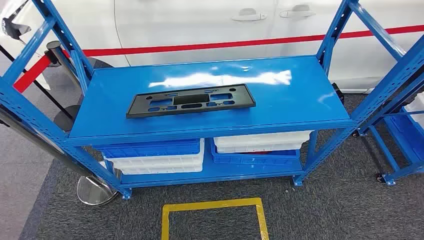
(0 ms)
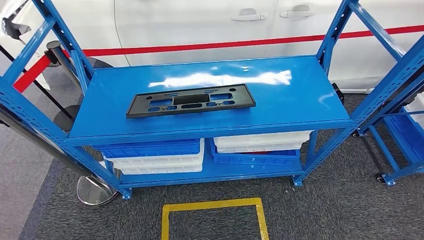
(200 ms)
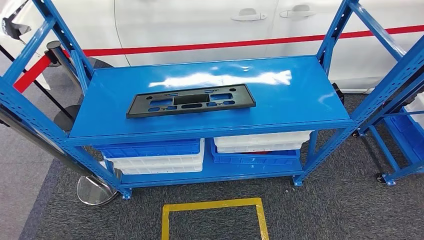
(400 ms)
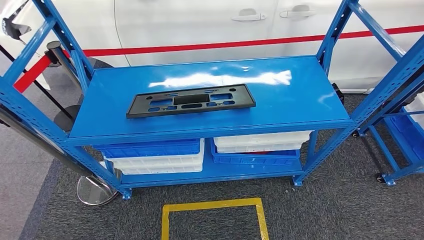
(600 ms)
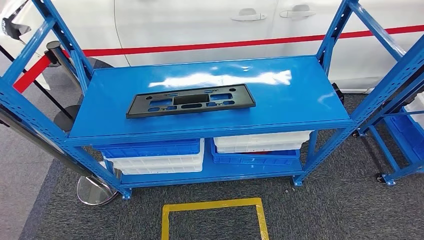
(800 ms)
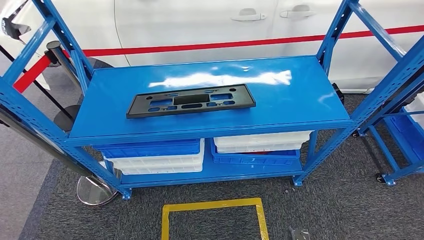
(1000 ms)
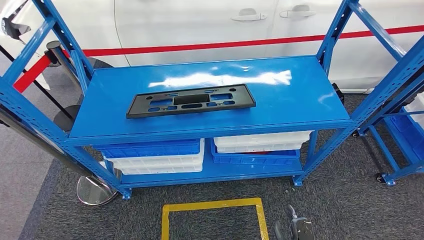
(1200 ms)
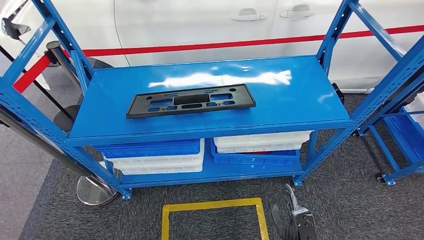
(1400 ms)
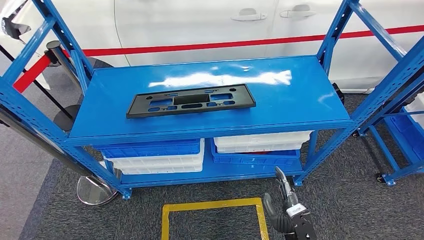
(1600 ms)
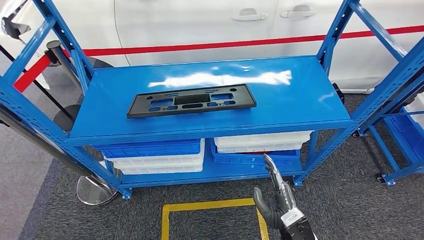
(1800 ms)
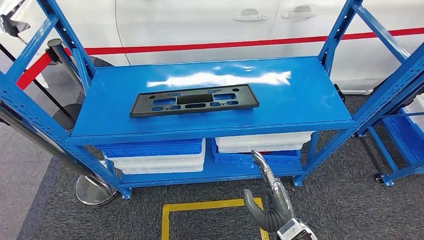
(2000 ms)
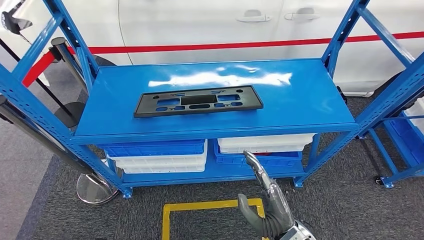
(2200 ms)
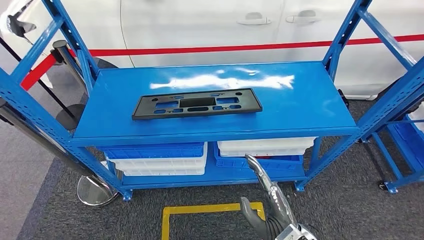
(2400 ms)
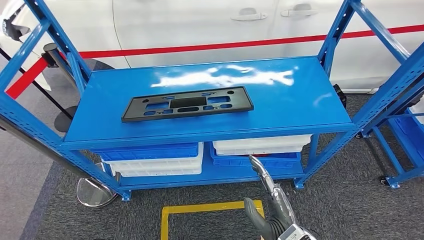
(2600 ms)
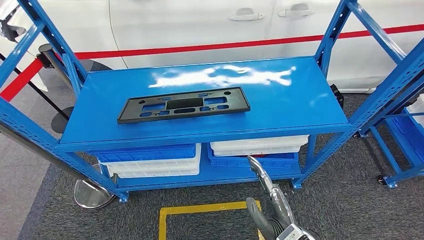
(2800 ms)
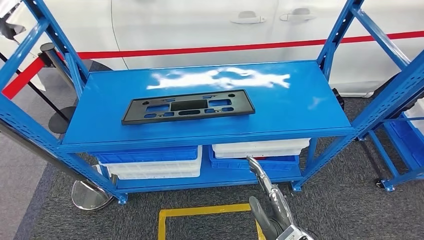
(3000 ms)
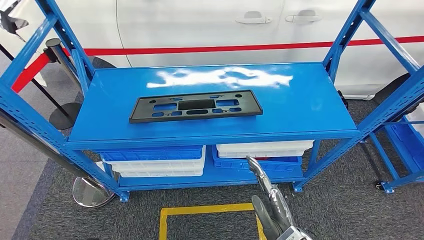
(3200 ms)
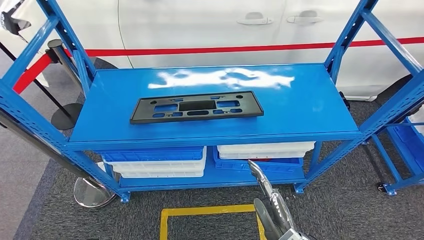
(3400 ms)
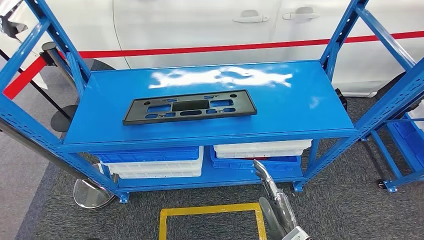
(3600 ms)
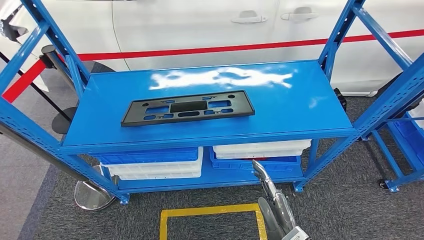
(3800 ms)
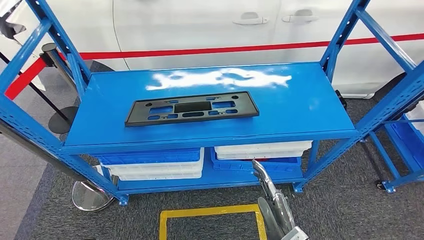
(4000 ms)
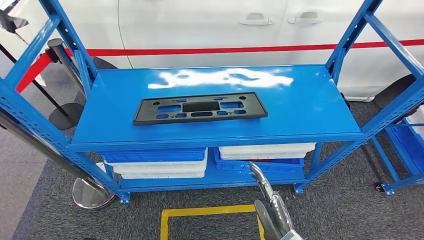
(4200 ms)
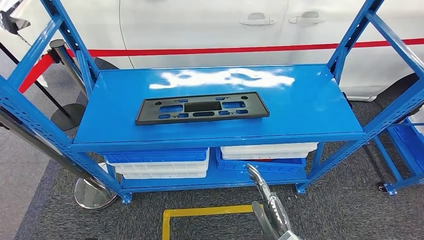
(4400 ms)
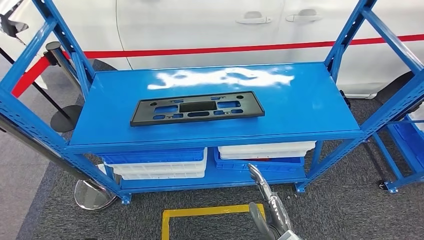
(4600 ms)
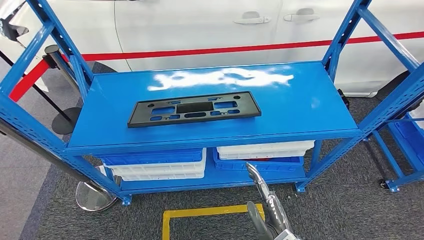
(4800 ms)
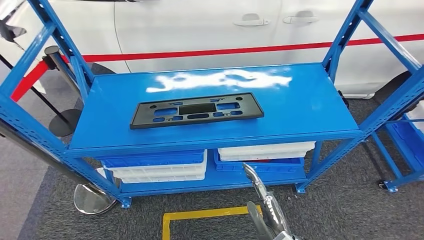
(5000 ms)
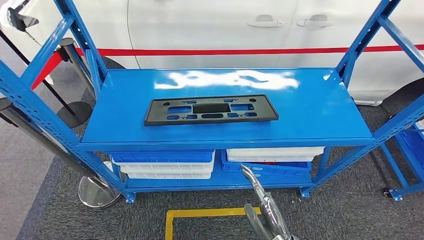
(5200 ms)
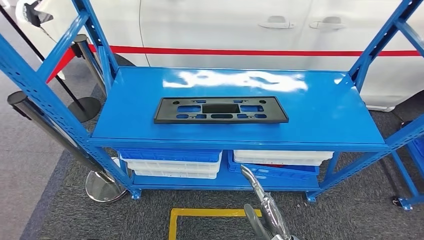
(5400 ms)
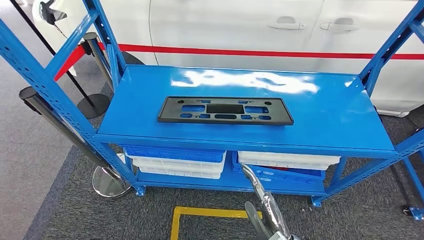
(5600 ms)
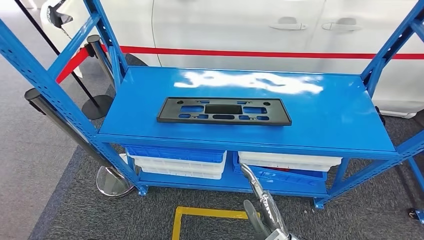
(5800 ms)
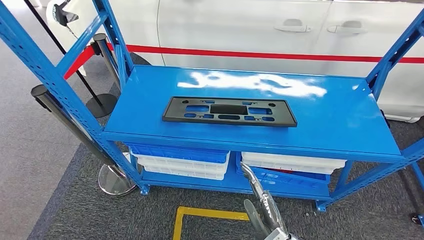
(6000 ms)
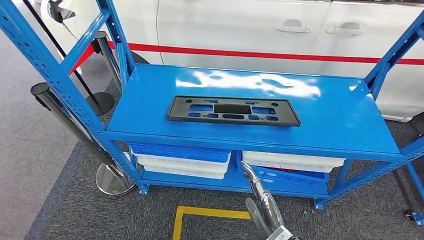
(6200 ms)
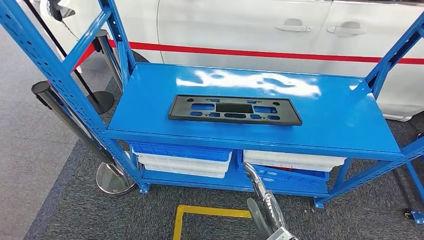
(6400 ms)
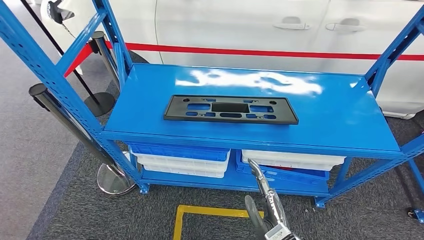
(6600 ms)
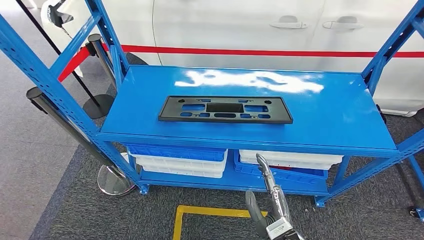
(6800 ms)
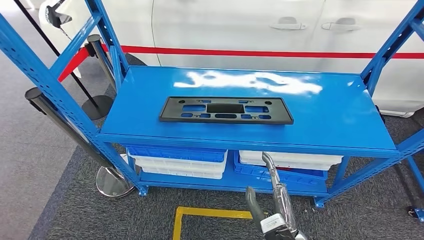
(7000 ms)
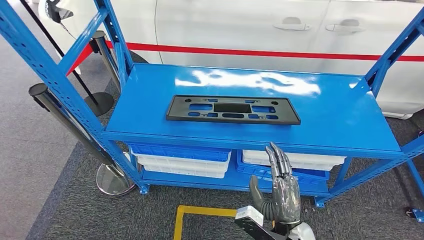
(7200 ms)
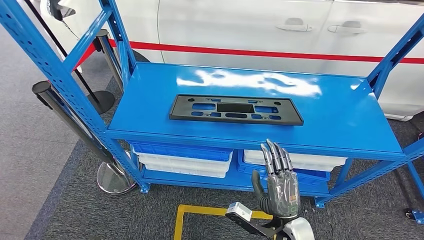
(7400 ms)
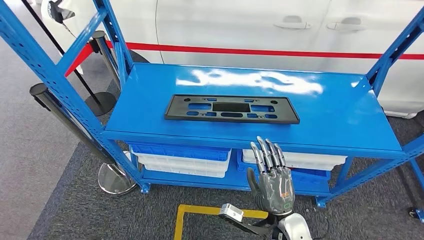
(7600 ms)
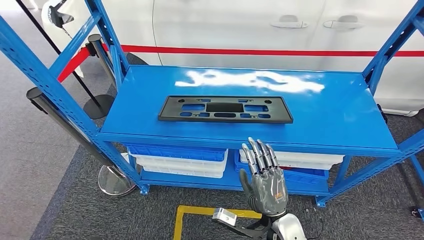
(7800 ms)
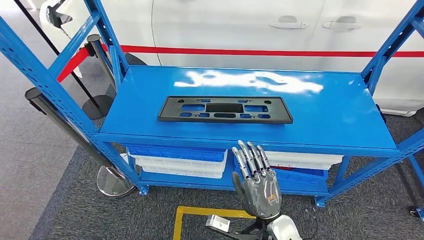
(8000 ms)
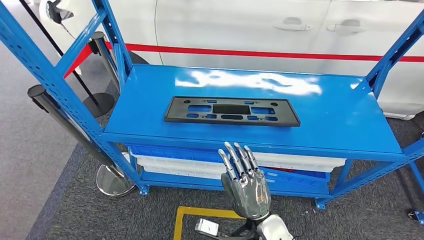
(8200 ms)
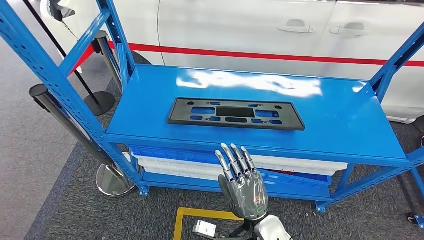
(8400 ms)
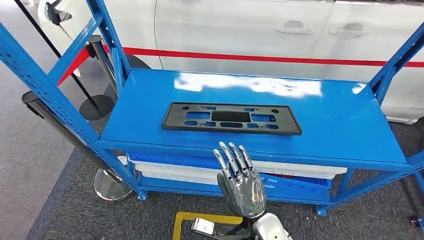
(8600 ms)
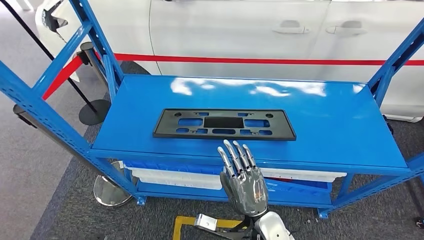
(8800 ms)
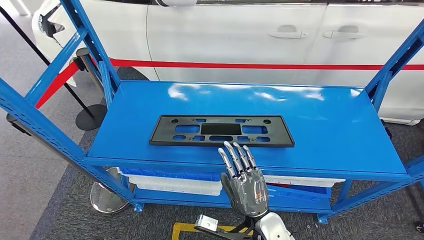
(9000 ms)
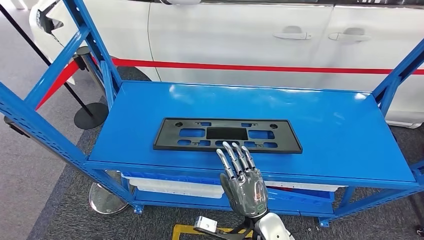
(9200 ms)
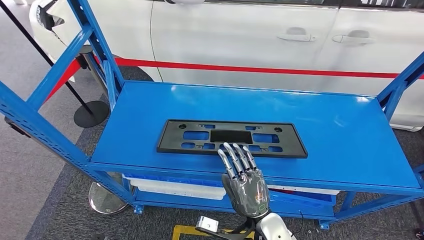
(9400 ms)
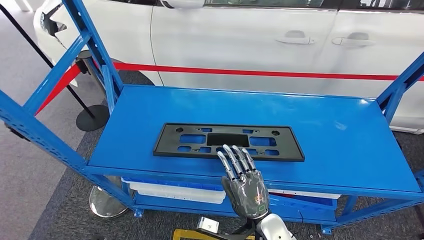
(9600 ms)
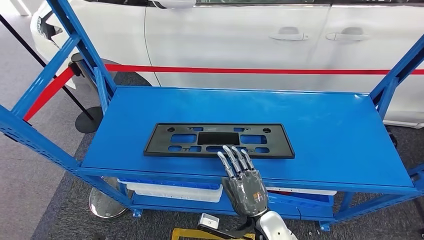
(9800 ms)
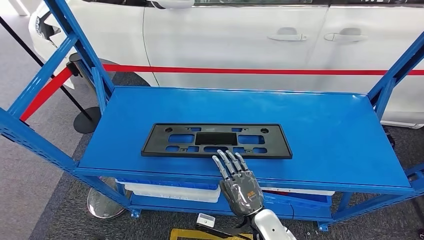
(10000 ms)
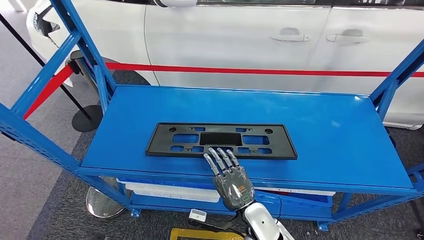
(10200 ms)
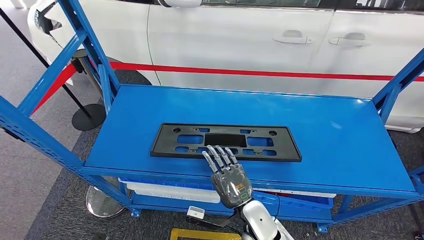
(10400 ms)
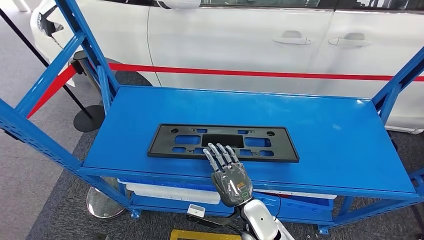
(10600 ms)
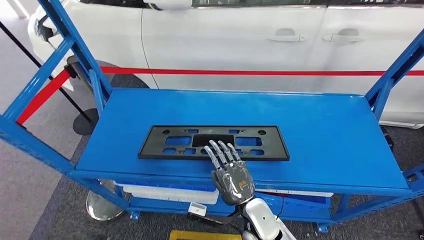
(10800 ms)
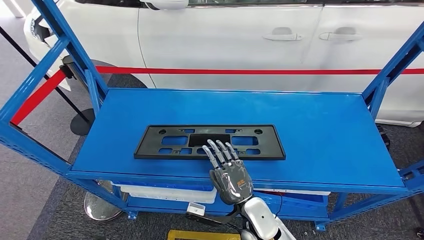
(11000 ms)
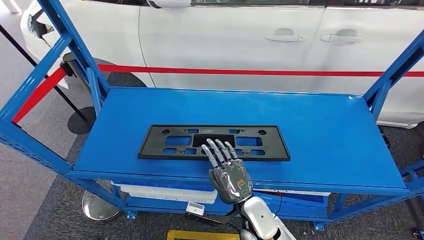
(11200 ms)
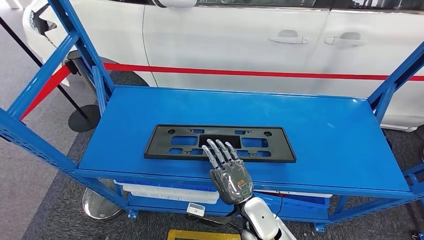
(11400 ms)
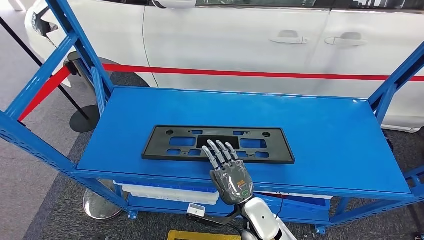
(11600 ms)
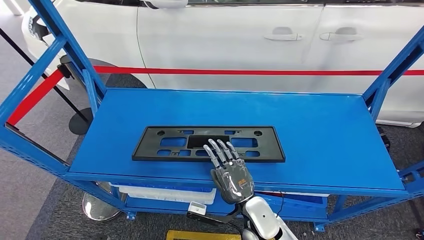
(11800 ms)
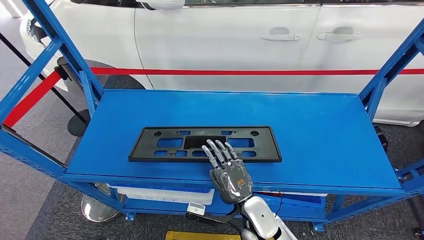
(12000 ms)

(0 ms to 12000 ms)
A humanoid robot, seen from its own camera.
6000 ms - 7600 ms: The right hand heads forward, covering approximately 5 cm.

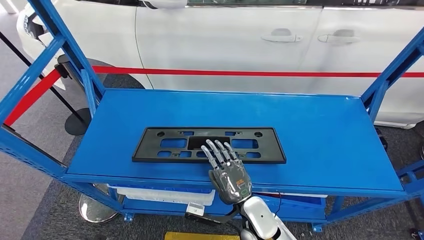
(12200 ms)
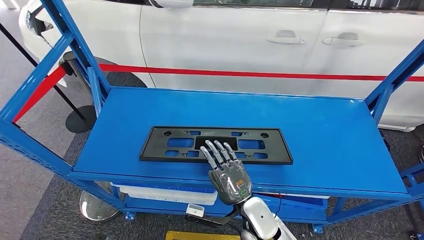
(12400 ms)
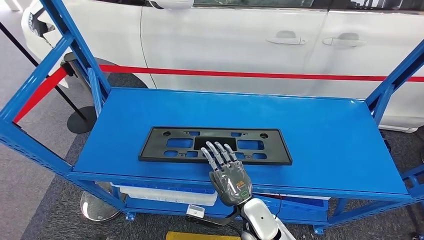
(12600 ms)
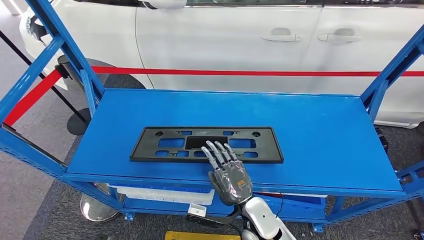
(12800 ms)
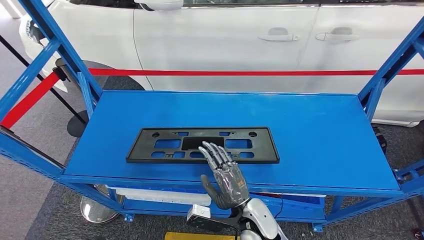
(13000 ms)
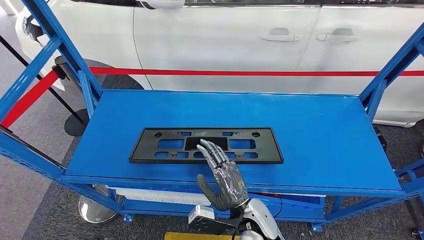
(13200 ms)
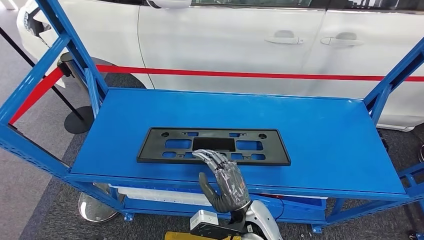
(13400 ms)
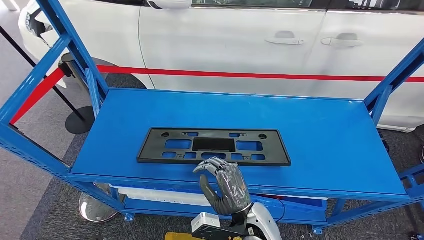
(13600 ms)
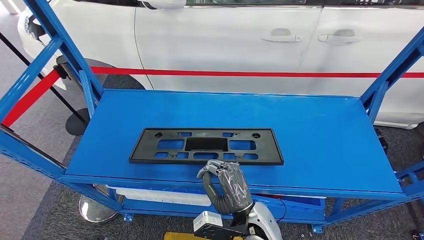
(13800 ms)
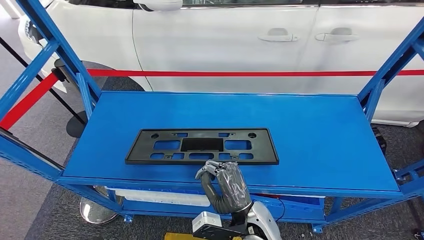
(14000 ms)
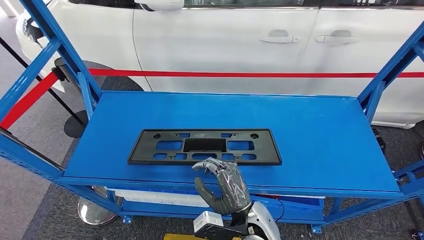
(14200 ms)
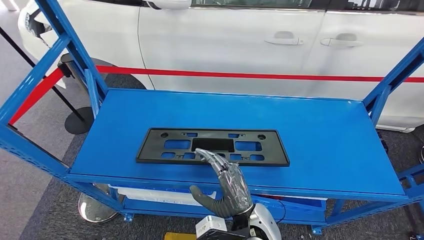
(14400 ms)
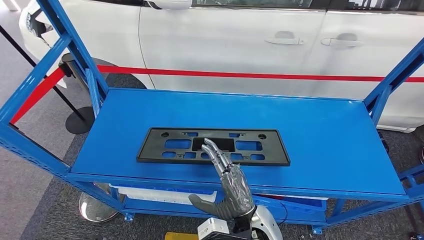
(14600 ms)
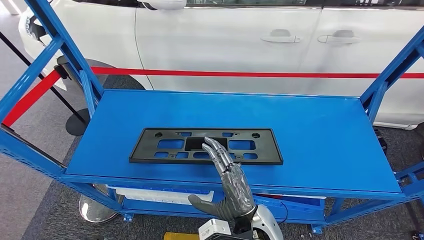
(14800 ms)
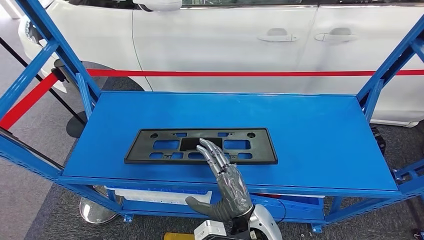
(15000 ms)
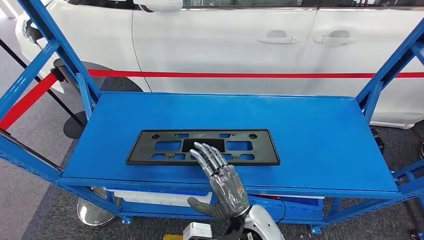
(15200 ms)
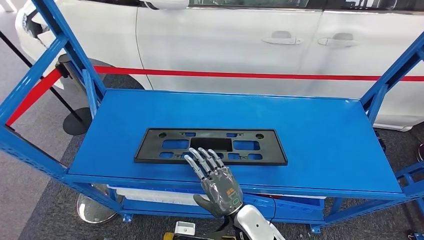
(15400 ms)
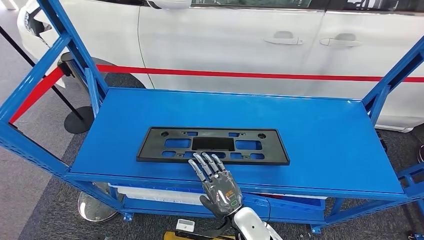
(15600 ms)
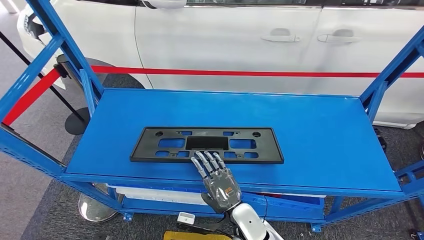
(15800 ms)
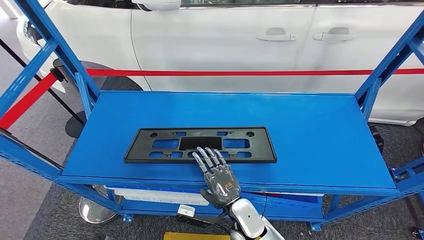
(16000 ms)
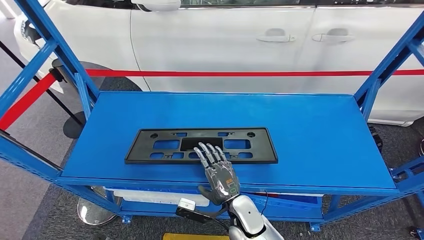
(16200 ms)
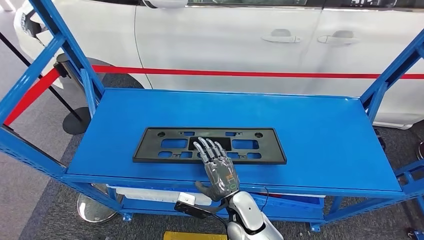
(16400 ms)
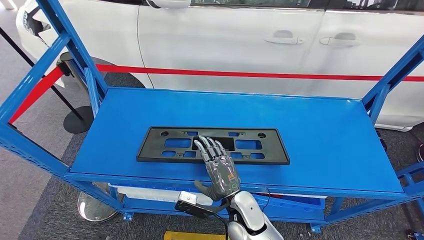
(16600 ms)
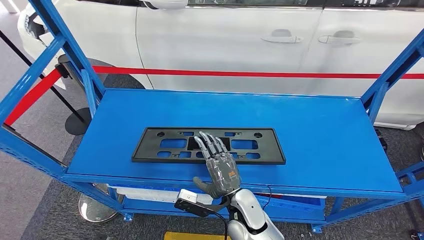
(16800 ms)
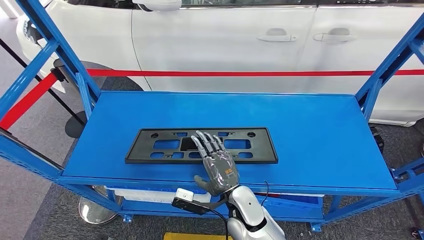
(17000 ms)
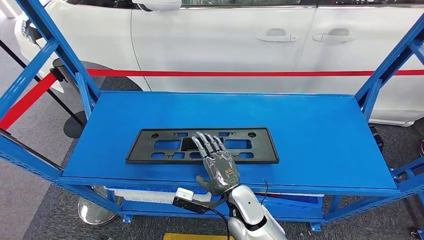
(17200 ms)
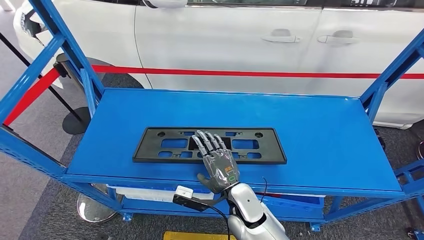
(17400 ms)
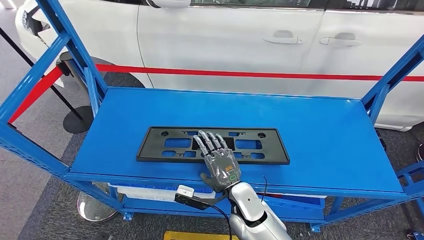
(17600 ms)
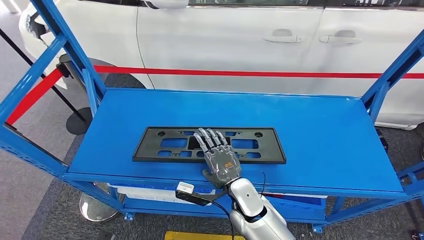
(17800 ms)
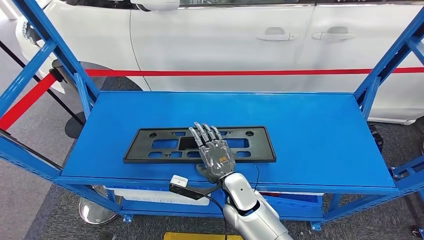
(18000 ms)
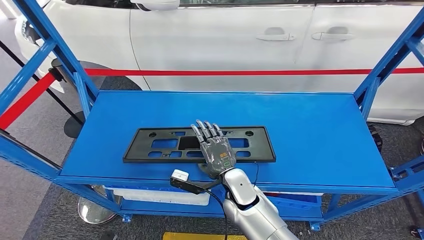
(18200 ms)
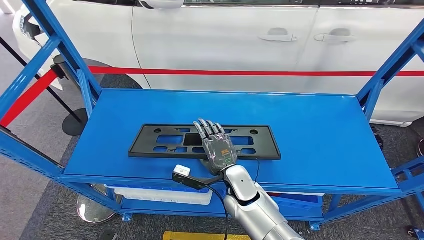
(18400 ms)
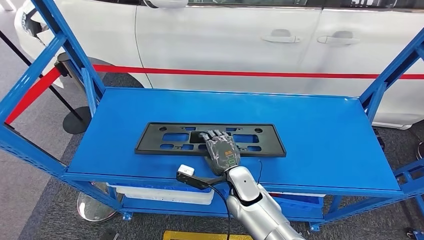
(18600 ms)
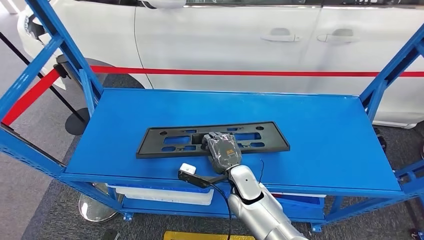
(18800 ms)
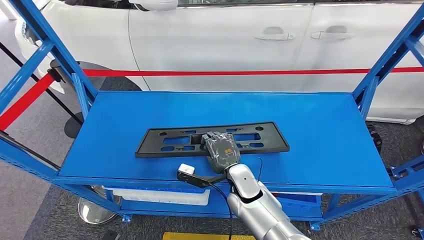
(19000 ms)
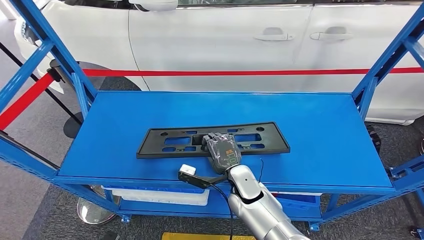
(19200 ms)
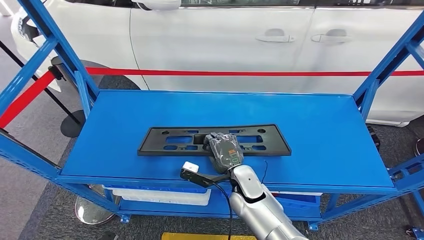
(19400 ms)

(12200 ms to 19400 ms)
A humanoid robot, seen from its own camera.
18000 ms - 19400 ms: There are only small adjustments of the hands.
